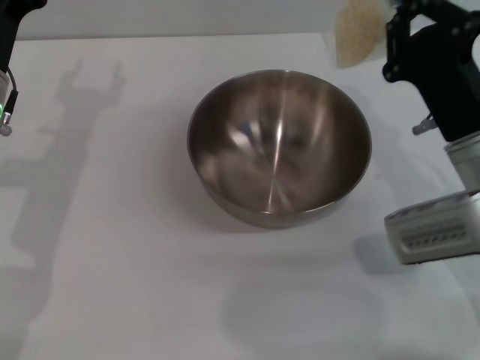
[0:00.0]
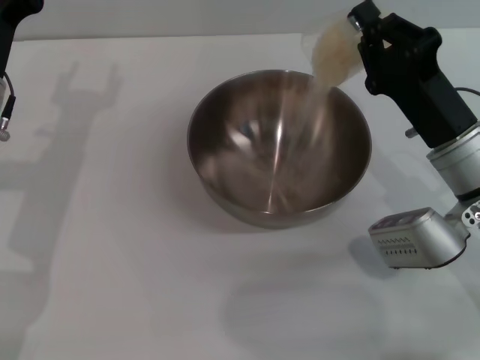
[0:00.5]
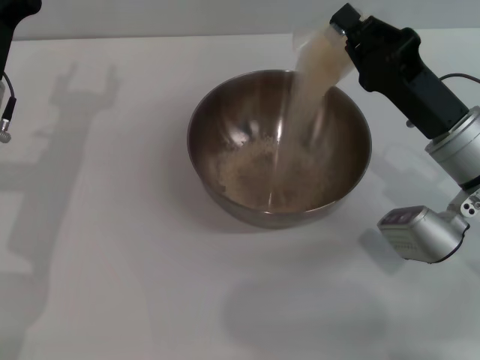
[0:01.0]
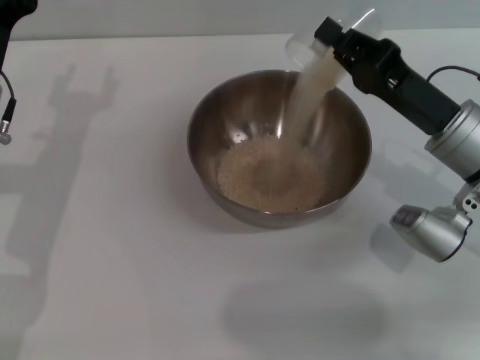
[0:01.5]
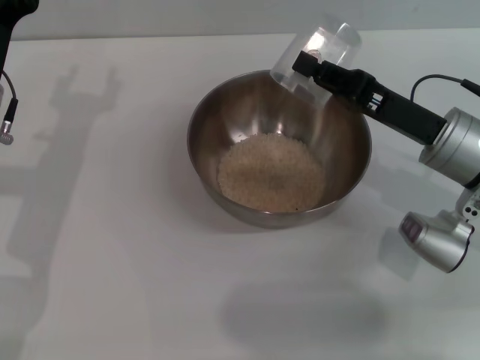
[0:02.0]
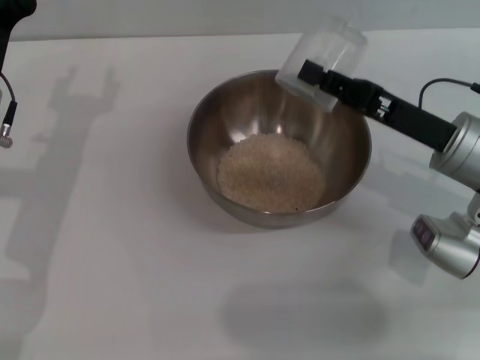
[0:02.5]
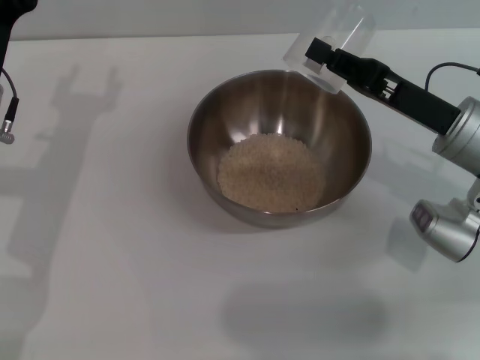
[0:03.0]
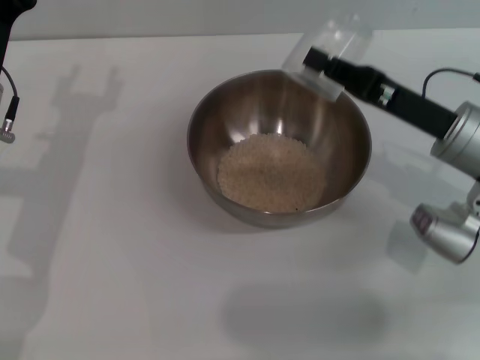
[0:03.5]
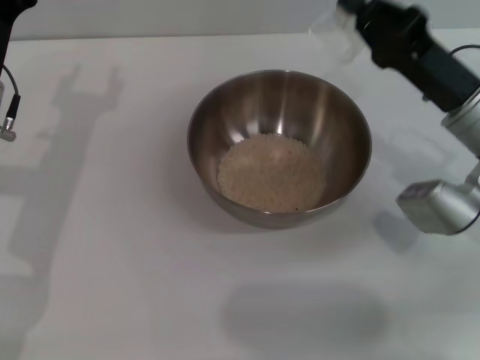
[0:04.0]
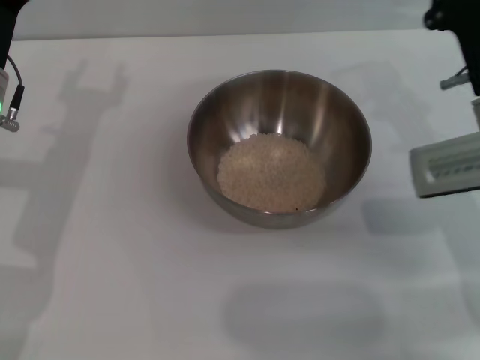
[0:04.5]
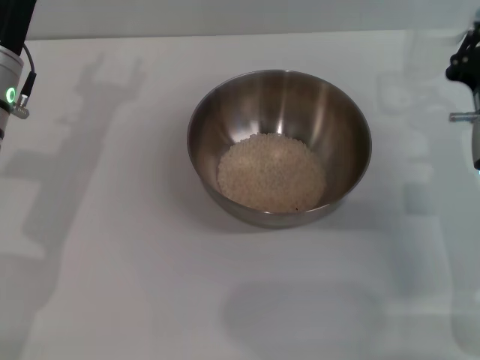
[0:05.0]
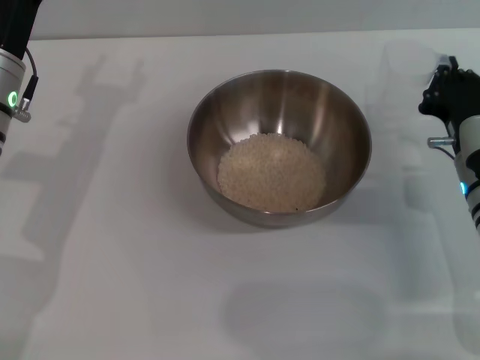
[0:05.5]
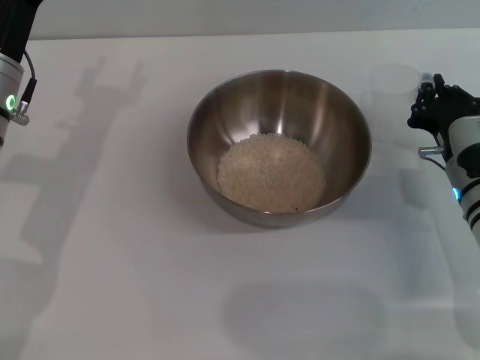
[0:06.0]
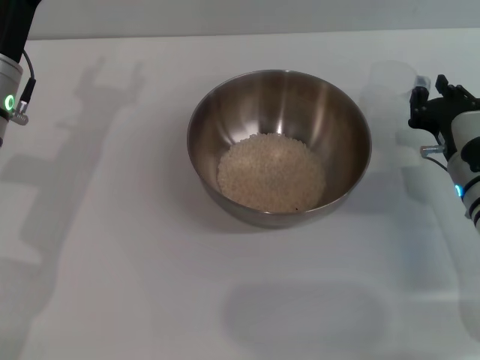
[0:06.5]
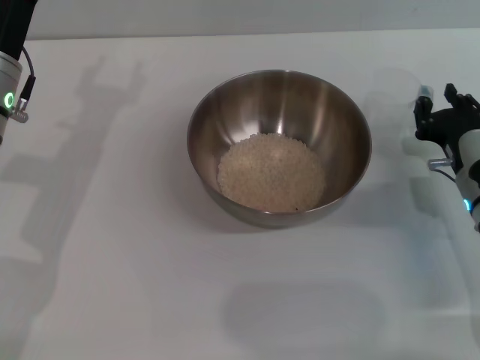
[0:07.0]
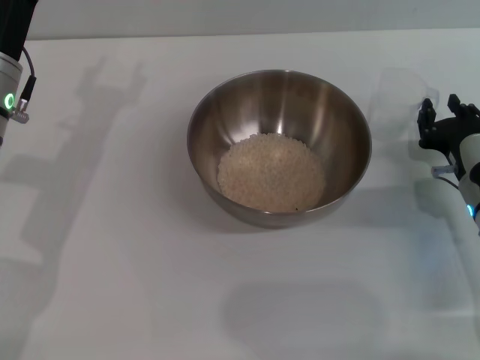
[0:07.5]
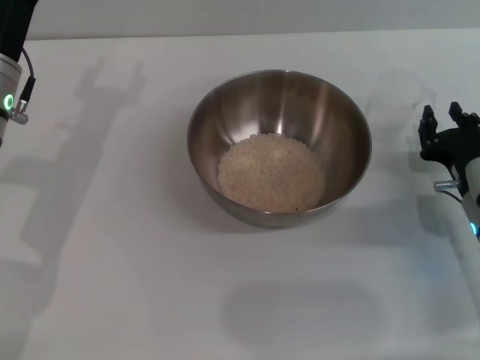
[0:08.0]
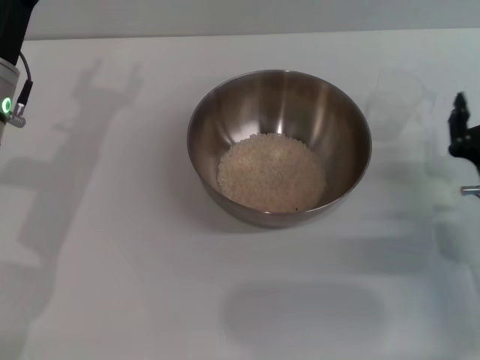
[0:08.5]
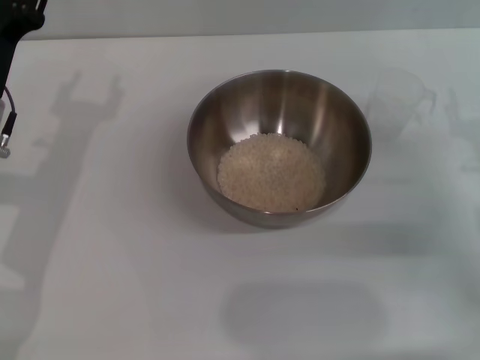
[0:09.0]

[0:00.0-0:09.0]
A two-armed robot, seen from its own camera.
Task of the whole recording: Place the bowl in the middle of the table with one hand and pour the rice from the grain cup into it with the other hand.
Step, 0:00.0 to 0:03.0: Pour the rice from the cup into the bowl with the right gripper.
Step, 0:03.5 to 0:08.0: Place the cup on the table with the right gripper.
0:04.5 to 0:07.0: The right gripper goes about 10 cm downward, and opens its fingers.
0:07.0 to 0:09.0: The right gripper heads upward and to the right, covering some 10 cm.
